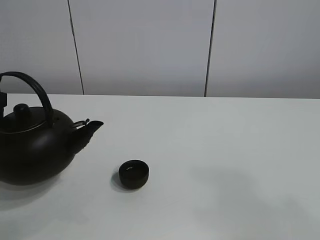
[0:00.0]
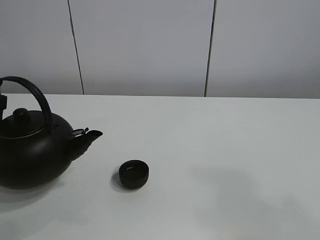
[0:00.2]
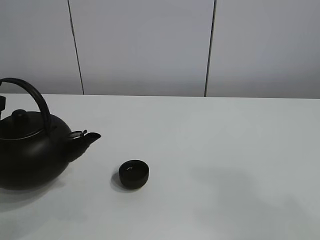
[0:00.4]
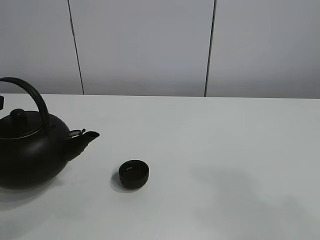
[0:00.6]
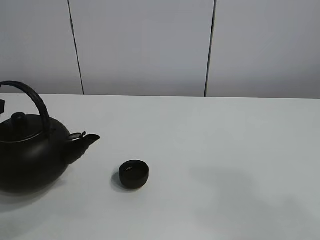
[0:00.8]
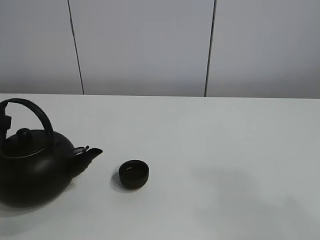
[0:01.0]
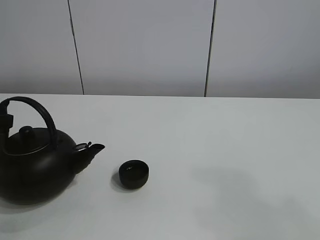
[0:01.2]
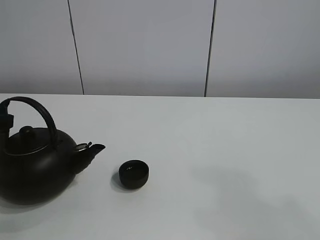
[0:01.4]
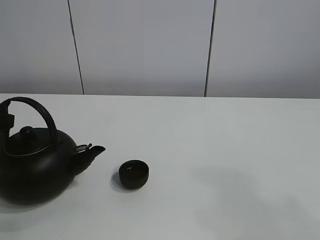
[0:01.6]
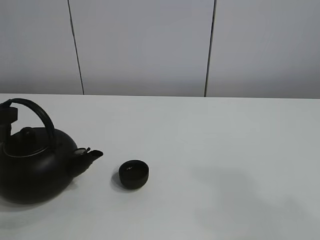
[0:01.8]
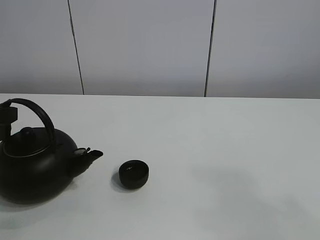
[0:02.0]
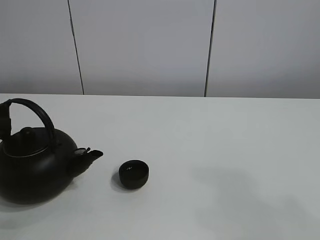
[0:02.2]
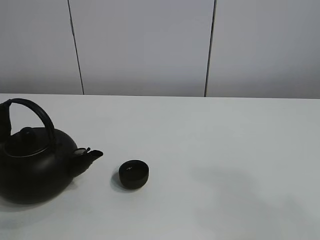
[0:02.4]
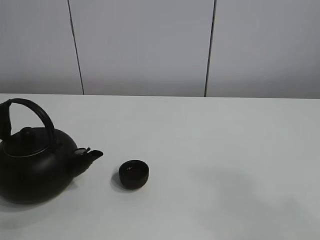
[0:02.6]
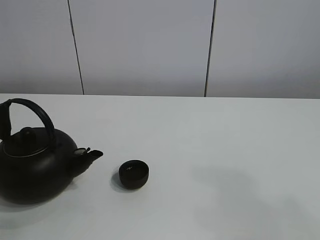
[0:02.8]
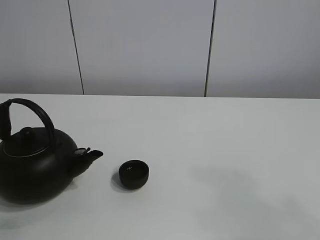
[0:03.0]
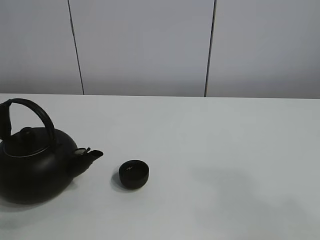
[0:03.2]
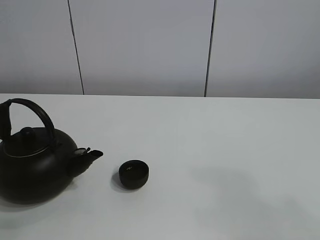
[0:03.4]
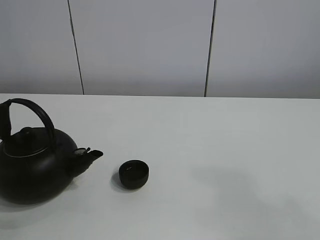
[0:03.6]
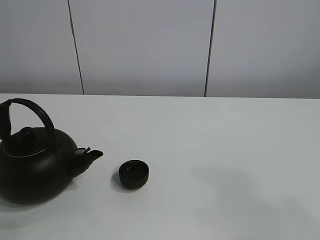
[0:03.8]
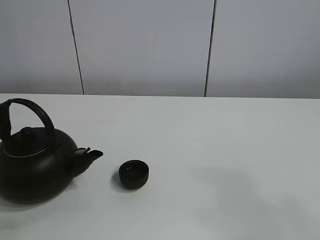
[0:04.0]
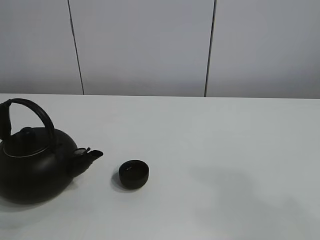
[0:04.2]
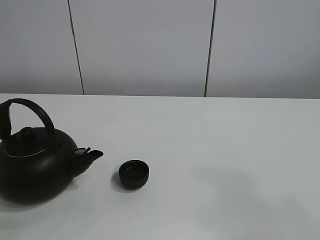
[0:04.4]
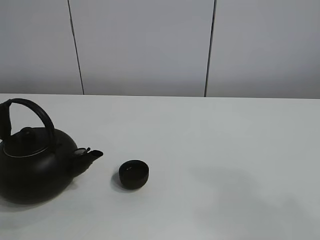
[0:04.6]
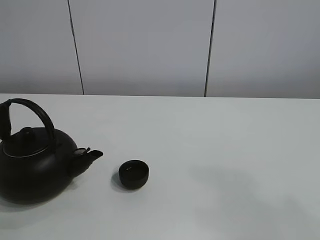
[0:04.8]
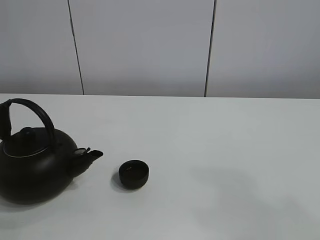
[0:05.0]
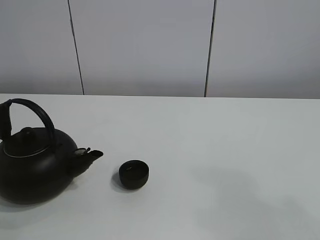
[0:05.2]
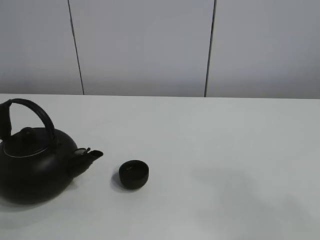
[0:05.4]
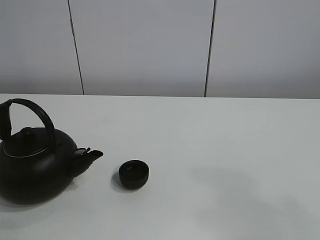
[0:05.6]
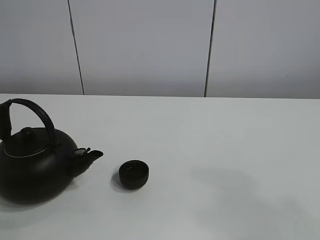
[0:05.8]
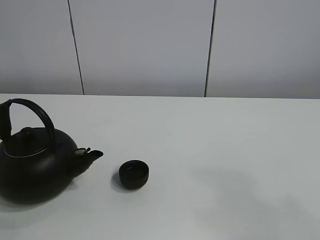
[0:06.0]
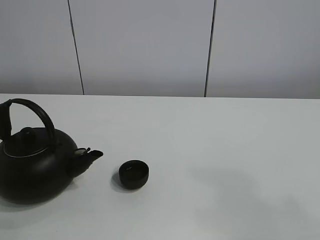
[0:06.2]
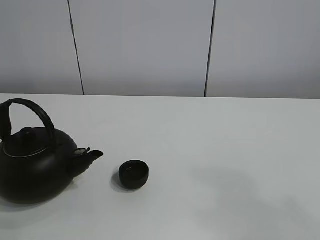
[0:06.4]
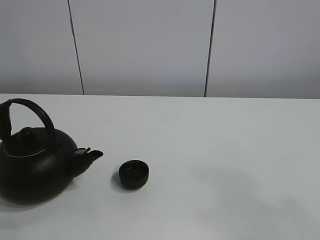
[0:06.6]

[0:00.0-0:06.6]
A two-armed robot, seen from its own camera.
Task of the whole recording: pour tea into the teacup.
0:00.0 to 0:01.6: The grippers stay close to where they were, moving slightly.

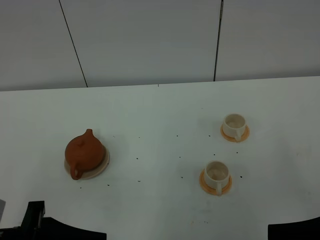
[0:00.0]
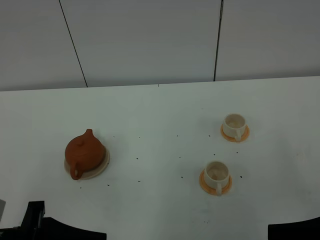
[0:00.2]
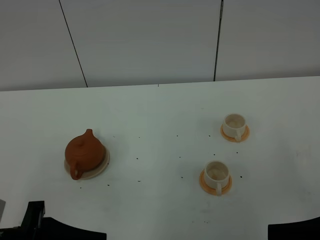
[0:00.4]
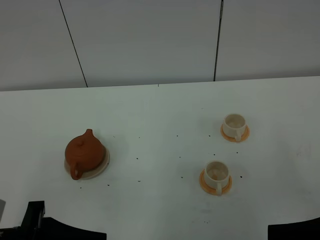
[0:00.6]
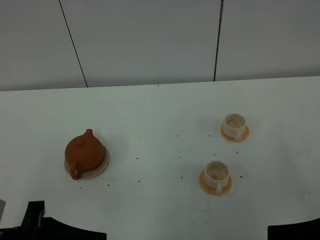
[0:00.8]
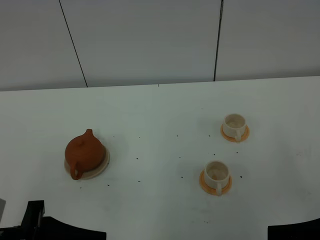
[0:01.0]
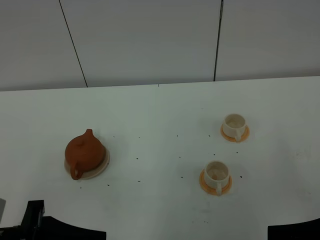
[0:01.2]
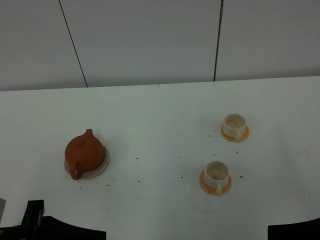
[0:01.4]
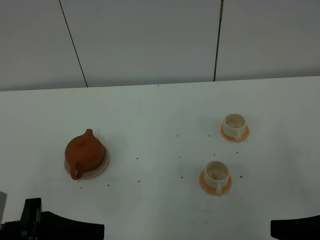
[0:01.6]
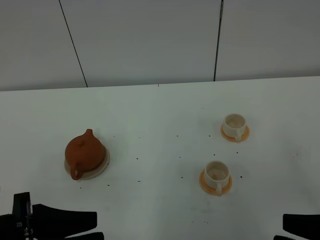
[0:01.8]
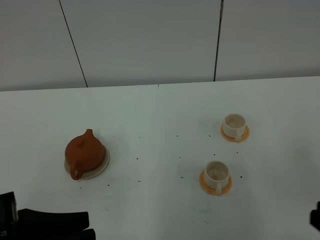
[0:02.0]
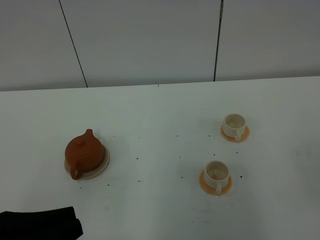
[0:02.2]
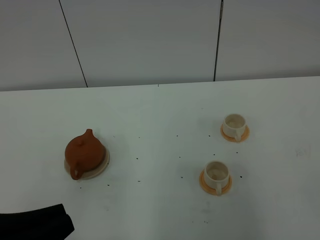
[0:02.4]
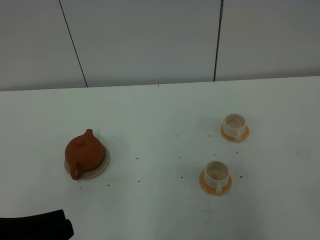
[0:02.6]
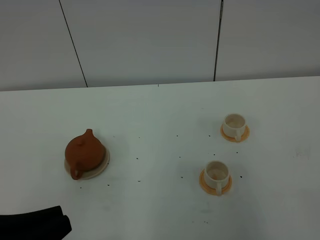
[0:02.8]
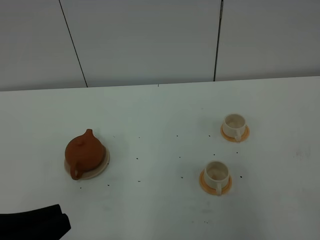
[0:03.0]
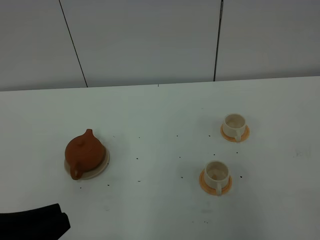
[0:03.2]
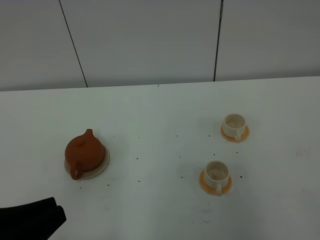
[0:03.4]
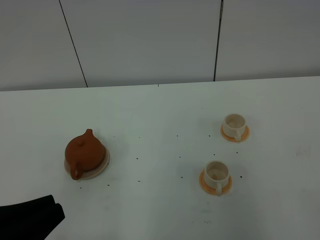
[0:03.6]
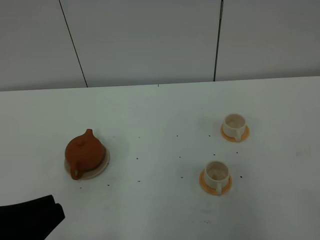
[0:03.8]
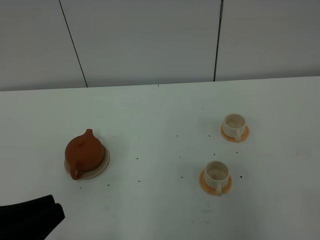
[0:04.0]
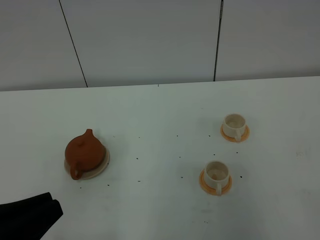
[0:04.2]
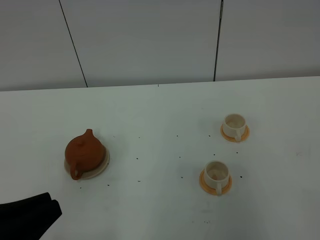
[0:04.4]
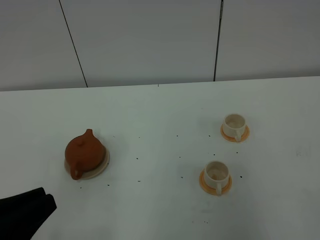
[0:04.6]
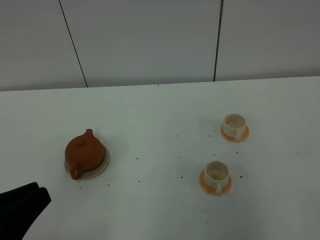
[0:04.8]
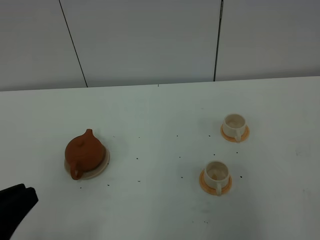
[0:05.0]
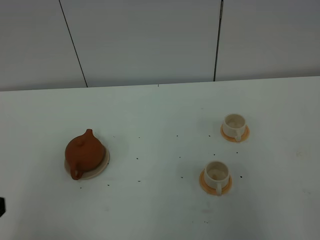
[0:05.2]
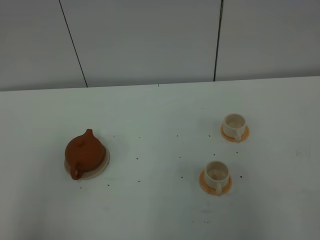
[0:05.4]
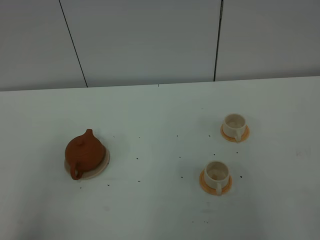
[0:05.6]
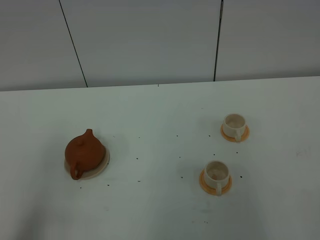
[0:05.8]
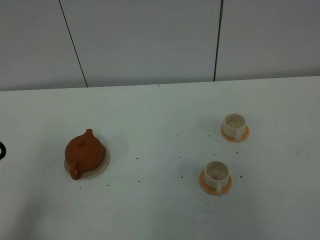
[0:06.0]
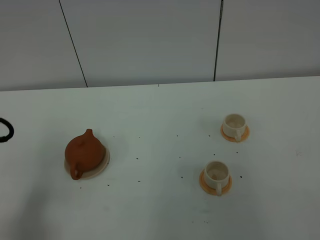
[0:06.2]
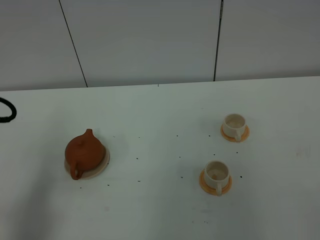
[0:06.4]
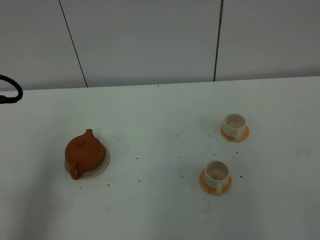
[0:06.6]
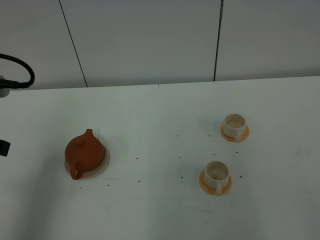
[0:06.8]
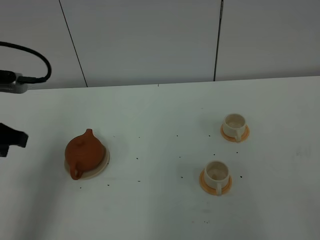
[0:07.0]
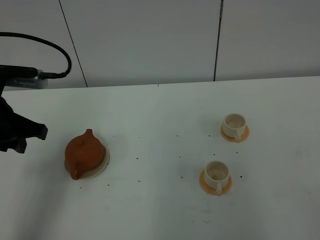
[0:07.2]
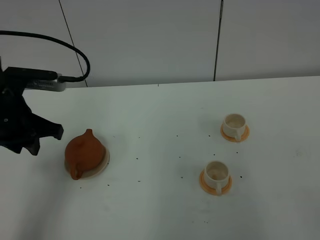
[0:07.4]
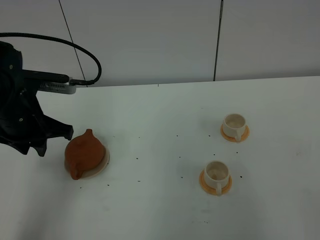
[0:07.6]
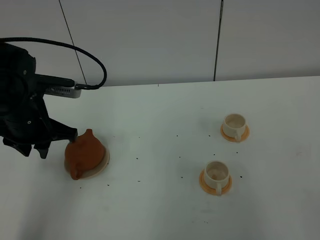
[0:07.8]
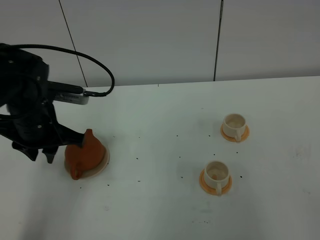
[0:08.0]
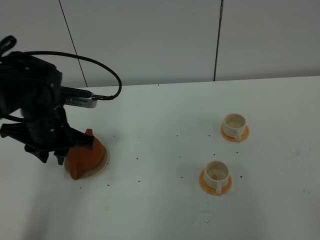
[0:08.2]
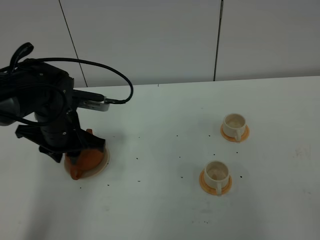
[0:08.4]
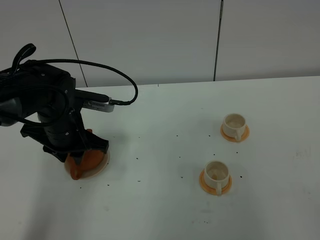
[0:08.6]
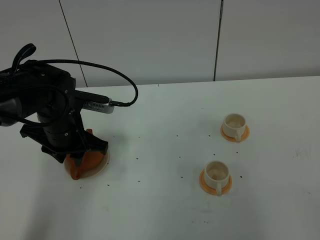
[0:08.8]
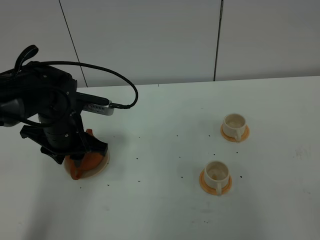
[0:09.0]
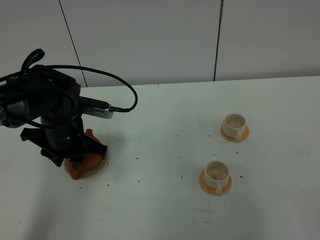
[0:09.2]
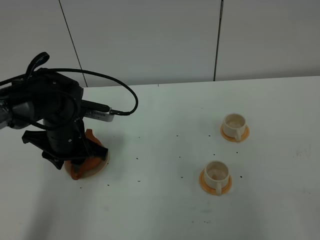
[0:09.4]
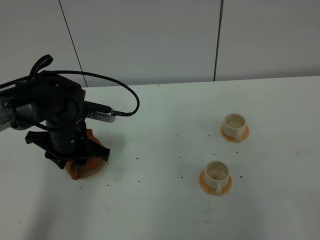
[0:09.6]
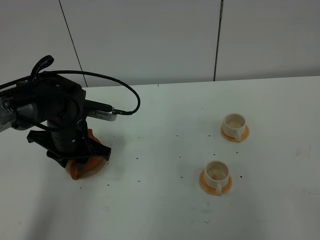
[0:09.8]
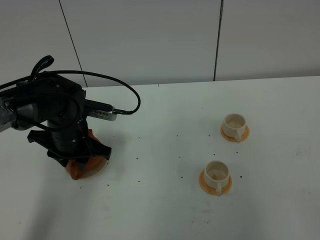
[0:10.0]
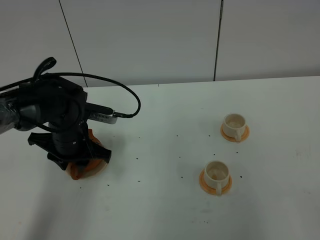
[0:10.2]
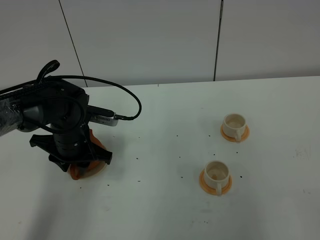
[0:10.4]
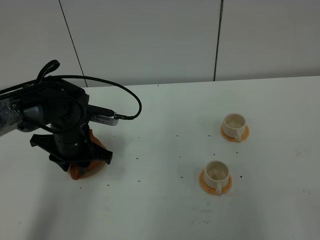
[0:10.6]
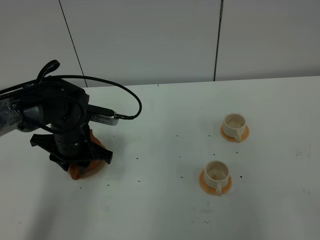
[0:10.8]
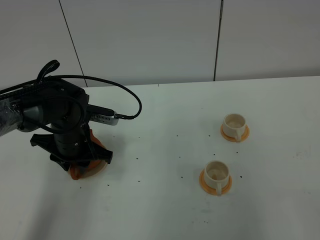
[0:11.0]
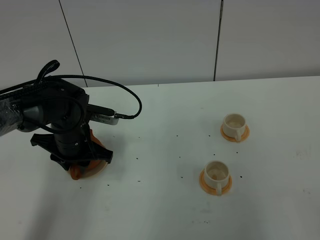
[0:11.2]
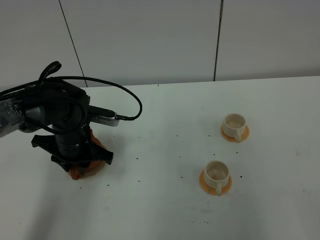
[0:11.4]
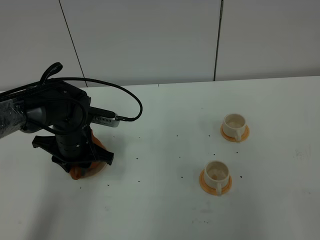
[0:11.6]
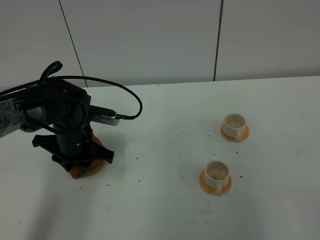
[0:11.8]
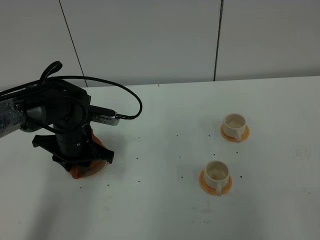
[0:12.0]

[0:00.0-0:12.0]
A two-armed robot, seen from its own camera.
Task of the whole recording: grasp the brown teapot and pour the tea into the two white teacups one by one, put the brown teapot back in its original place.
0:00.0 to 0:01.6: The grippers move only a little.
0:01.6 to 0:03.0: The left gripper closes up; the right gripper moves backward and to the right, roughly 10 cm, and closes its fingers.
0:03.0 to 0:04.4: The grippers stay close to where they were, moving slightly.
0:04.4 to 0:06.0: The left gripper heads to the left and forward, covering roughly 10 cm.
0:06.0 to 0:07.6: The left gripper heads forward, covering roughly 20 cm, and opens up.
0:07.6 to 0:09.0: The left gripper travels downward by roughly 5 cm.
0:09.0 to 0:10.4: The grippers stay close to where they were, moving slightly.
0:10.4 to 0:12.0: Both grippers stay put.

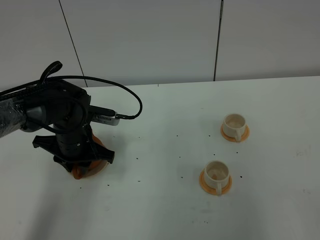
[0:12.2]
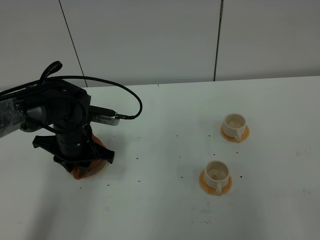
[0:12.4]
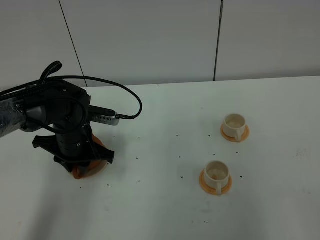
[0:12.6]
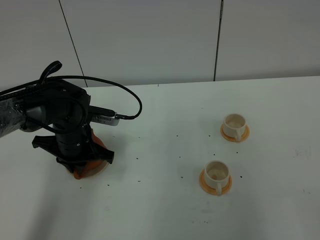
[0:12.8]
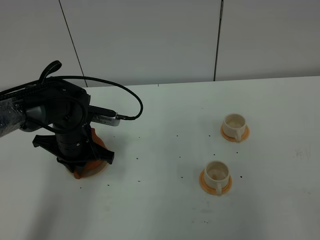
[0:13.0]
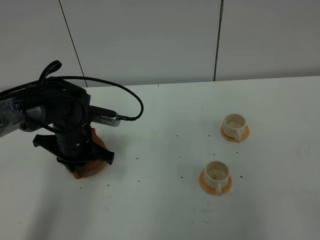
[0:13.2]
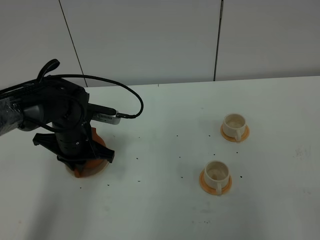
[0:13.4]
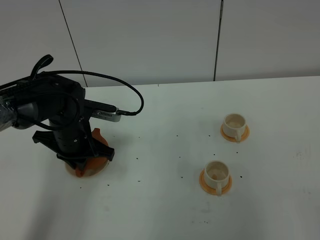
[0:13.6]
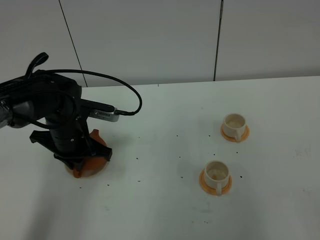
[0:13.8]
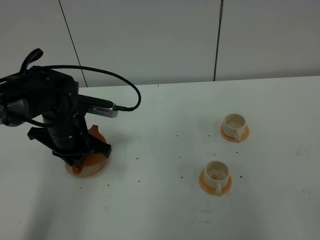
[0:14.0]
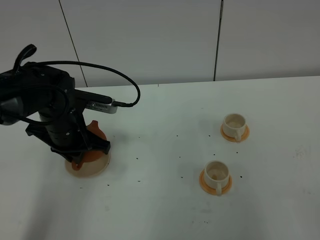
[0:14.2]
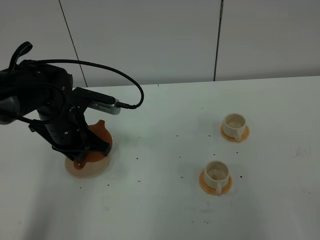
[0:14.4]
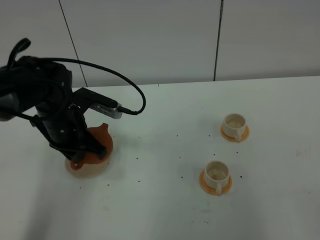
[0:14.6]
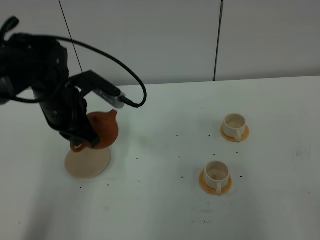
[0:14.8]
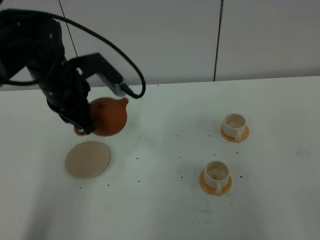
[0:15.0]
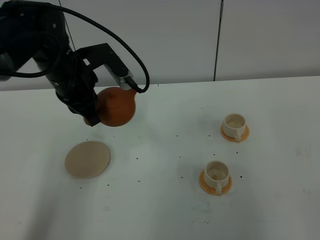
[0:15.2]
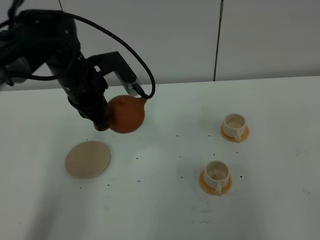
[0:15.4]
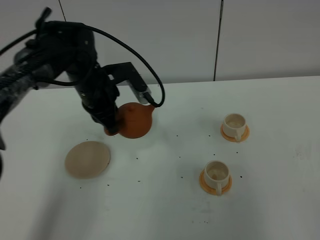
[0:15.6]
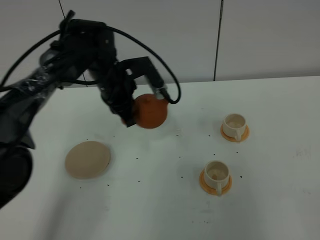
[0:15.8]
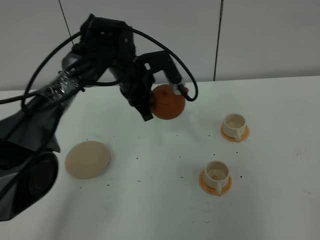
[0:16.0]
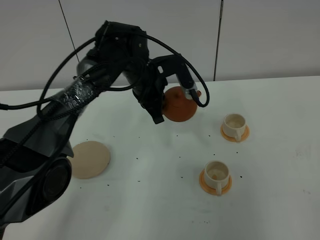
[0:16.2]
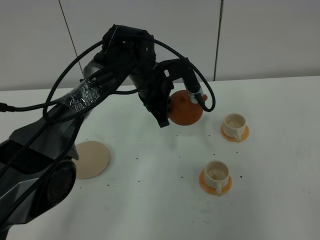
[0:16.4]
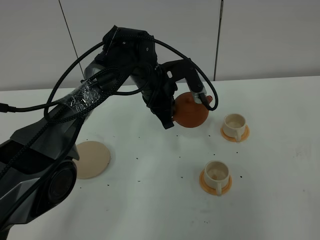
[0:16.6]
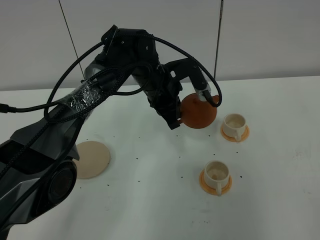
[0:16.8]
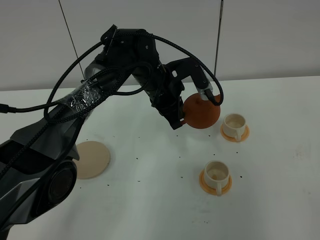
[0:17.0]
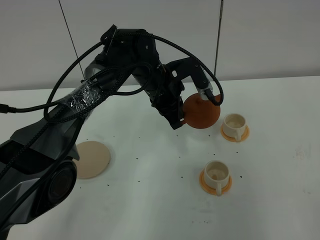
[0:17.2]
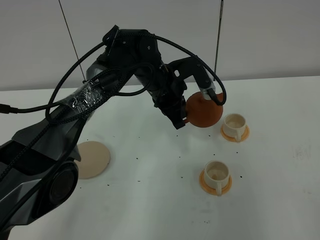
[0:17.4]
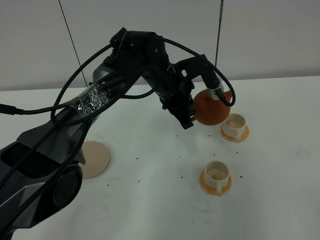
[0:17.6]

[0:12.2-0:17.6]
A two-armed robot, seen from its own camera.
Task of the whole recording: grasp the brown teapot and pour the tea into the two white teacups one by one, put the brown teapot back in its original place.
0:12.2 to 0:13.6: The left gripper closes up.
0:13.6 to 0:15.0: The left gripper is displaced upward by roughly 10 cm.
0:15.0 to 0:16.2: The left gripper moves to the right, forward and downward, some 15 cm.
0:16.2 to 0:17.6: There are only small adjustments of the grippers.
